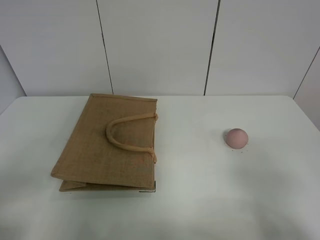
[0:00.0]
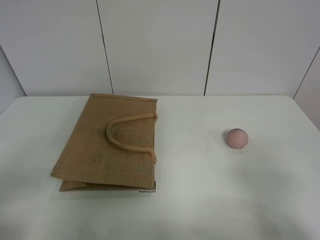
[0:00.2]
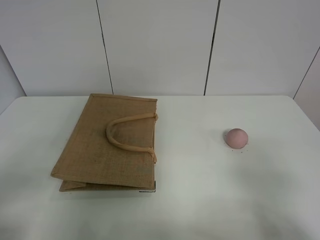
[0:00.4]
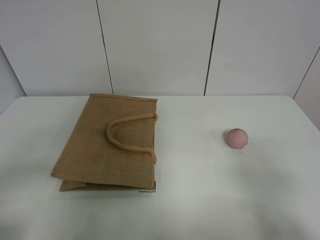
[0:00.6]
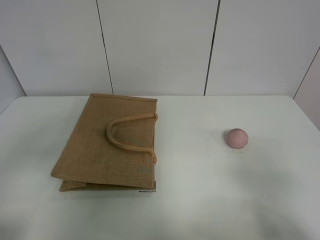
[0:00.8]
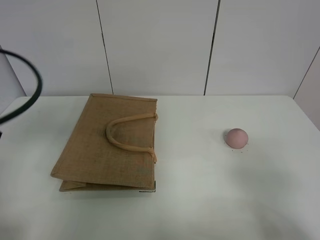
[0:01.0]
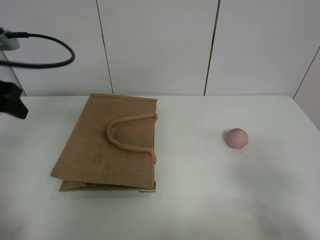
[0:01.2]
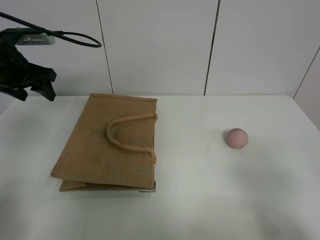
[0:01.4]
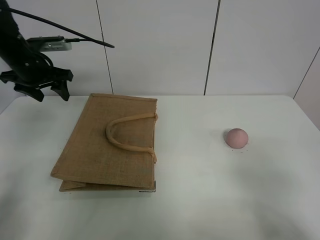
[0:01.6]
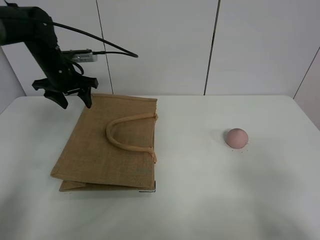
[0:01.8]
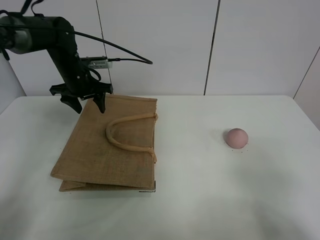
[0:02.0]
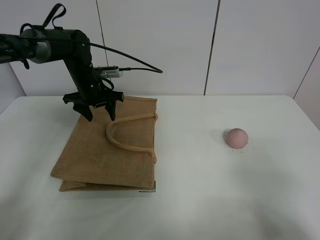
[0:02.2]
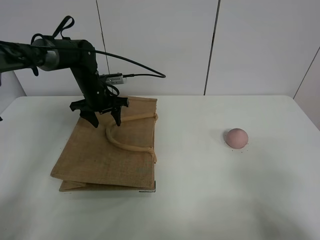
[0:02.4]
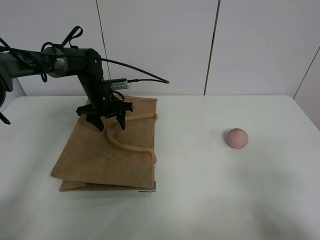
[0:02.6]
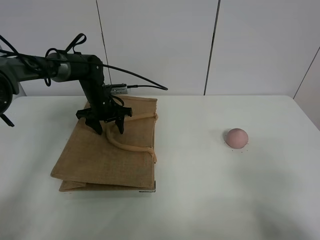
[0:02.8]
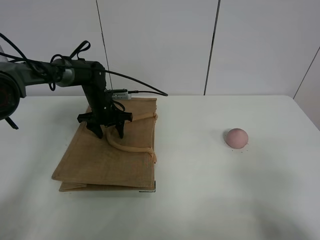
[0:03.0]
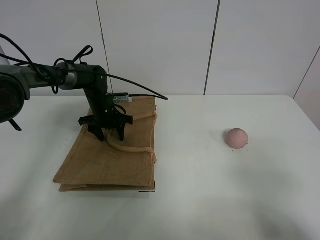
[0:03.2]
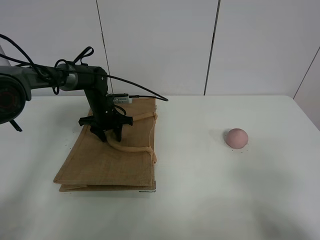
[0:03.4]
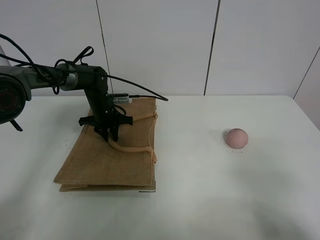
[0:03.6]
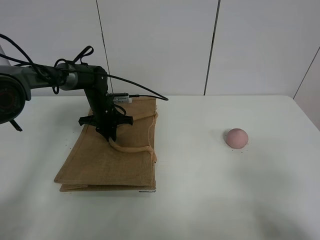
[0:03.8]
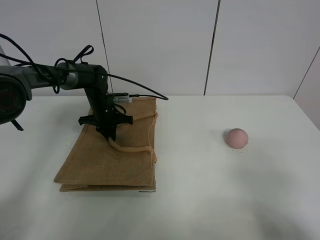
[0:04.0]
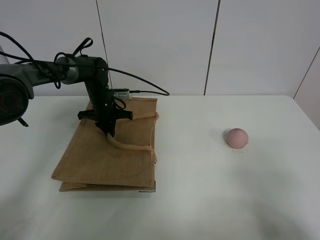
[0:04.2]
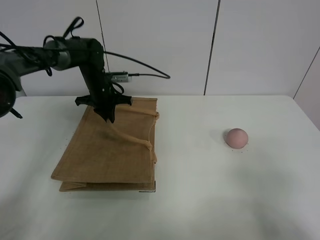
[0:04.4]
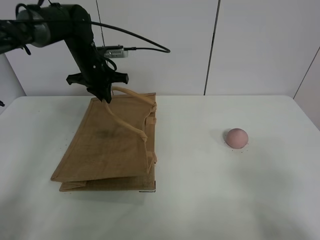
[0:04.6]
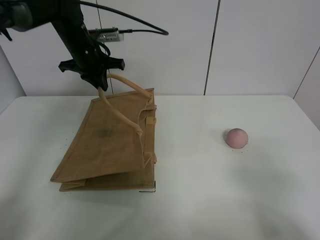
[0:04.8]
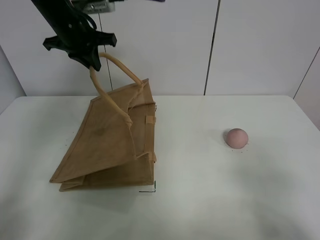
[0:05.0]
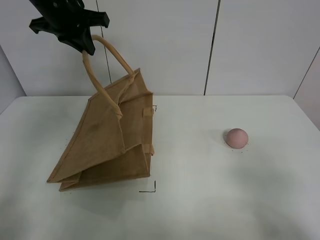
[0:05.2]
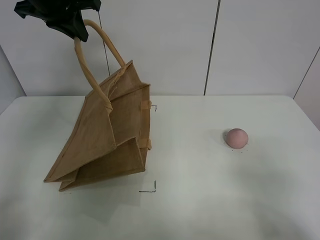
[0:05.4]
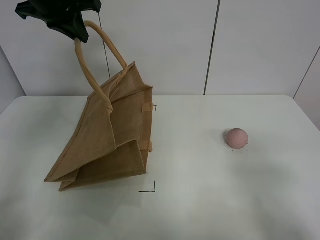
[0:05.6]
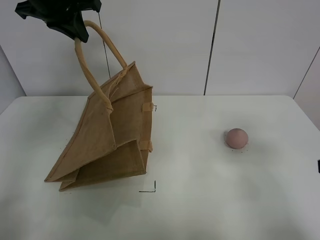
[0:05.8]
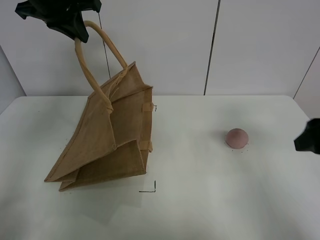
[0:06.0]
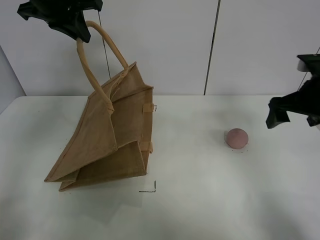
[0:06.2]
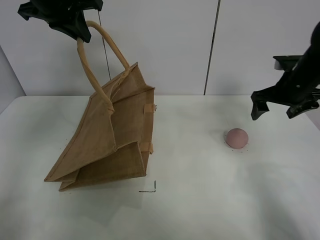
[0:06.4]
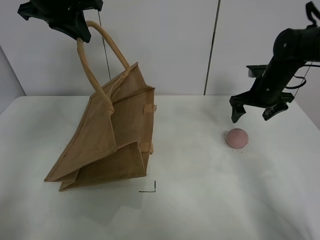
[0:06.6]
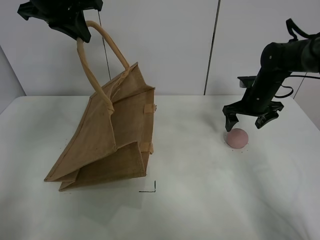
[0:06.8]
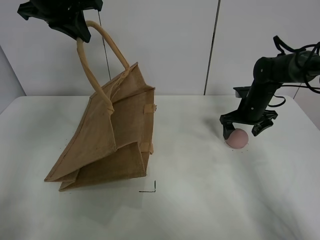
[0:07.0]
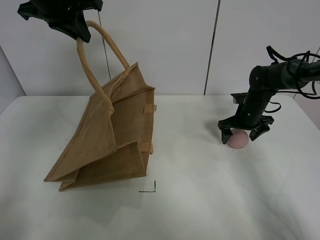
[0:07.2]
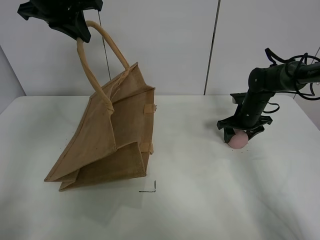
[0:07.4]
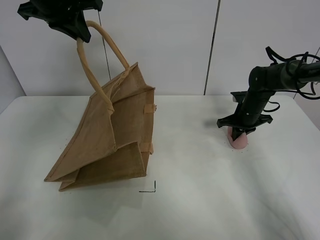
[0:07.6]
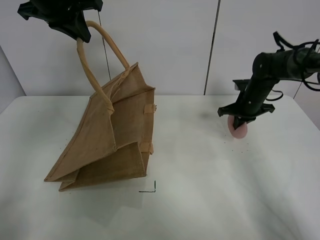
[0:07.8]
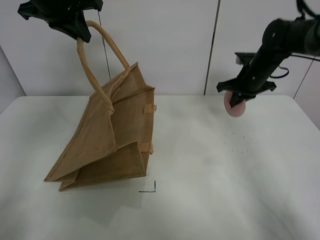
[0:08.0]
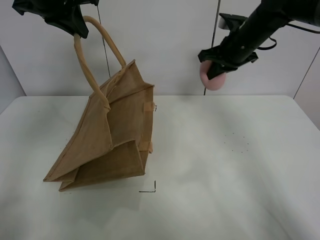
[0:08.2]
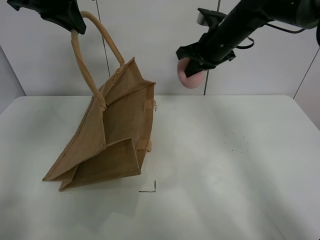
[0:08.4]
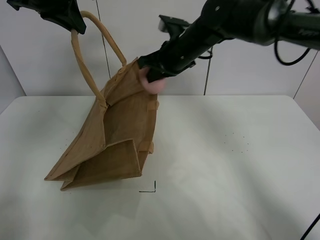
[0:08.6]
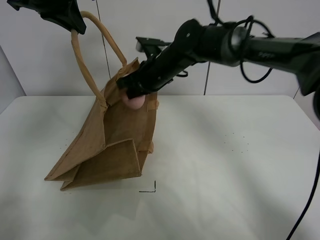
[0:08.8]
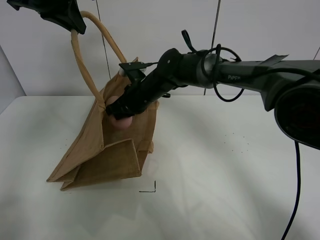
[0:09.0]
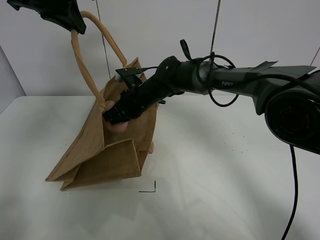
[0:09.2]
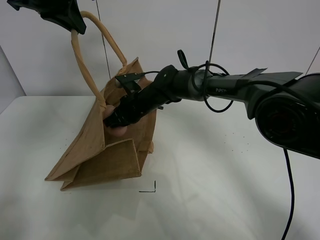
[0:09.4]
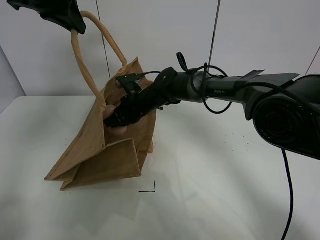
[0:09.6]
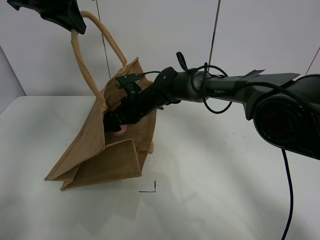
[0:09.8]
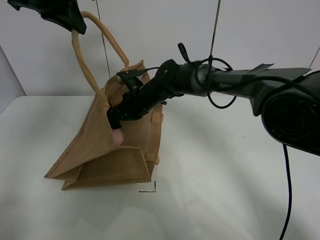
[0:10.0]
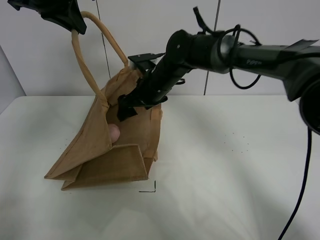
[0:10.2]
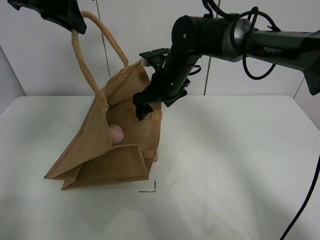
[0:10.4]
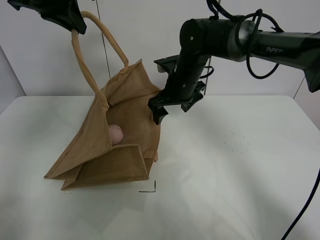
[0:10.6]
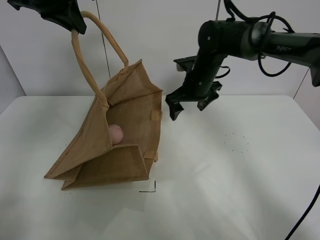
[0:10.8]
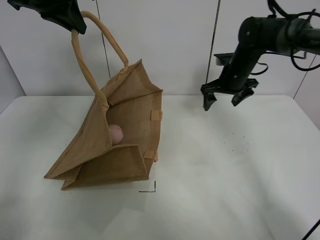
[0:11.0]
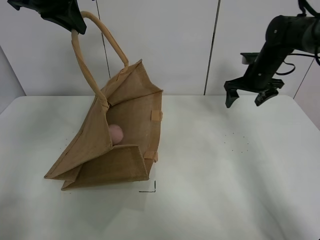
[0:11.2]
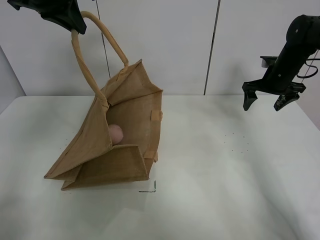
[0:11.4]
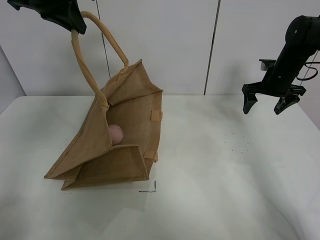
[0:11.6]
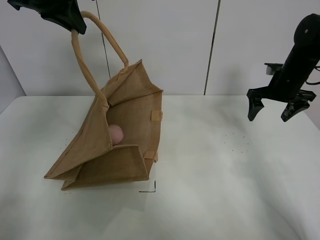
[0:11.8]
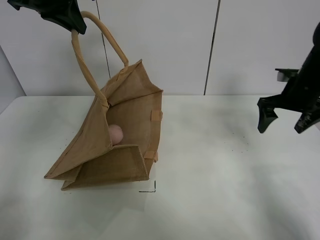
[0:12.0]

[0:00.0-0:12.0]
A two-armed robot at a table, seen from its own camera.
Task of the whole recording: open the brown linen bag and put the peach in the bag.
Step, 0:00.0 to 0:05.6: Lift the handbag with left gripper.
Step, 0:05.8 to 0:07.6: Grasp the peach with right gripper.
Step, 0:07.8 to 0:10.6: Place the peach in the handbag with right gripper.
0:00.0 to 0:01.6: The left gripper travels forward by about 40 cm.
0:01.6 to 0:03.0: The left gripper is displaced downward and to the right by about 20 cm.
0:03.0 to 0:04.4: The left gripper goes roughly 5 cm upward, and closes up.
0:04.4 to 0:06.0: The left gripper travels upward and backward by about 25 cm. The right gripper is displaced forward by roughly 20 cm.
0:06.0 to 0:07.6: The right gripper is displaced forward and downward by some 30 cm, and closes its fingers.
0:07.6 to 0:09.0: The right gripper shifts roughly 30 cm to the left.
0:09.0 to 0:10.4: The right gripper moves to the right and upward, some 10 cm, and opens its fingers.
0:10.4 to 0:12.0: The right gripper shifts some 25 cm to the right.

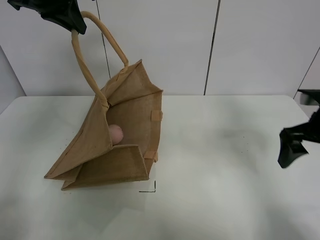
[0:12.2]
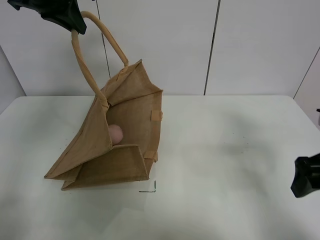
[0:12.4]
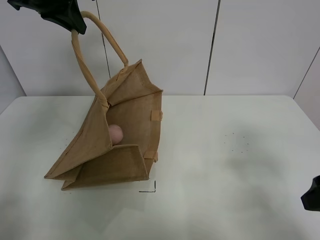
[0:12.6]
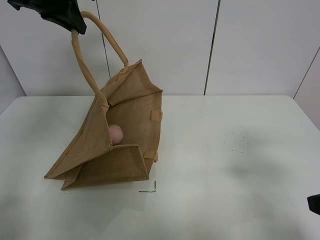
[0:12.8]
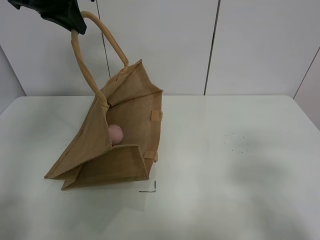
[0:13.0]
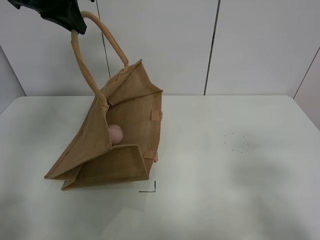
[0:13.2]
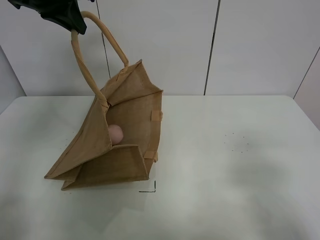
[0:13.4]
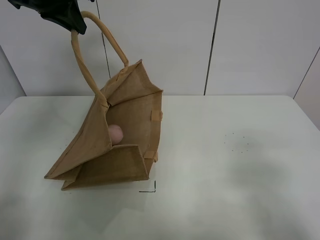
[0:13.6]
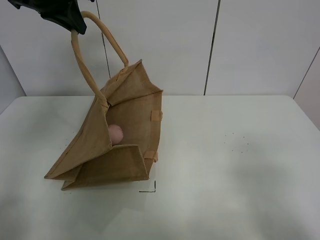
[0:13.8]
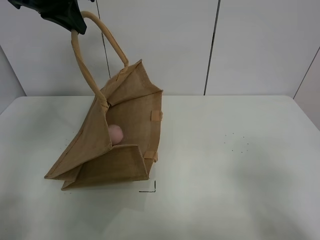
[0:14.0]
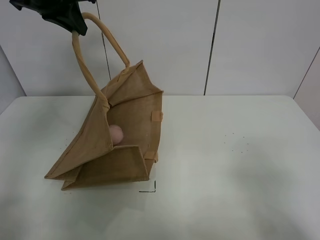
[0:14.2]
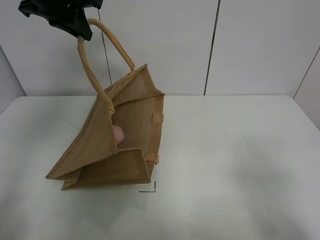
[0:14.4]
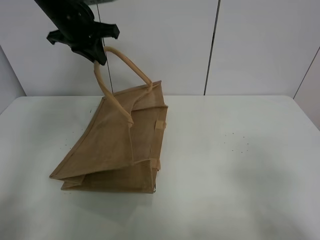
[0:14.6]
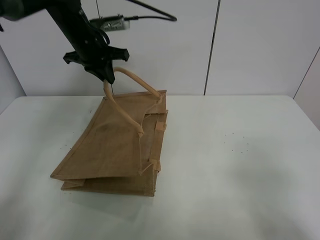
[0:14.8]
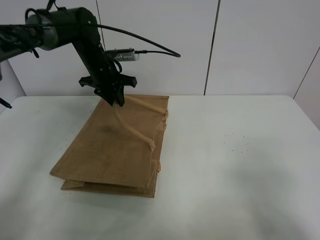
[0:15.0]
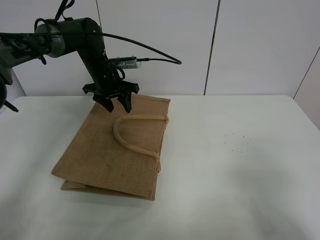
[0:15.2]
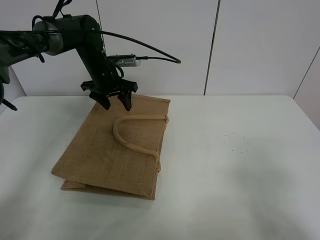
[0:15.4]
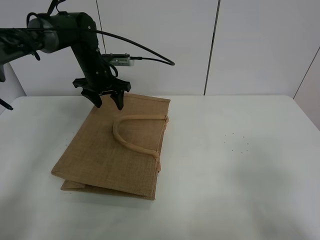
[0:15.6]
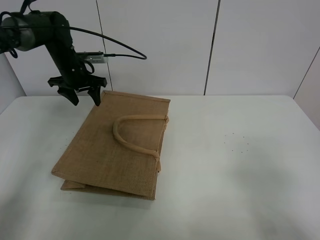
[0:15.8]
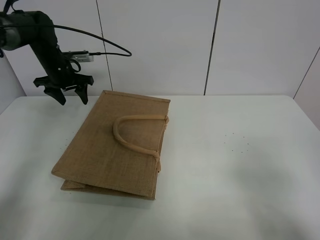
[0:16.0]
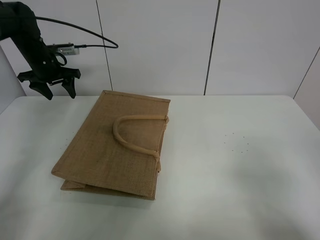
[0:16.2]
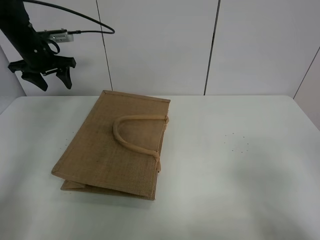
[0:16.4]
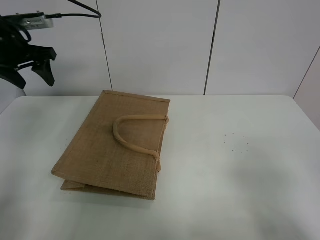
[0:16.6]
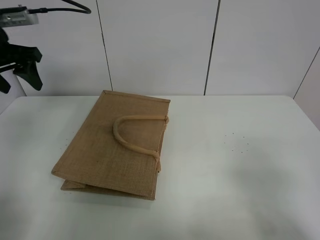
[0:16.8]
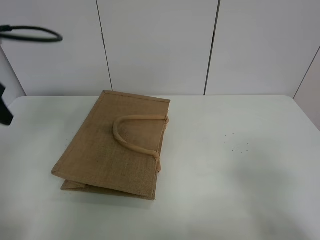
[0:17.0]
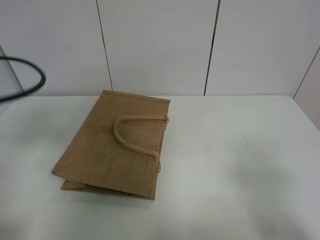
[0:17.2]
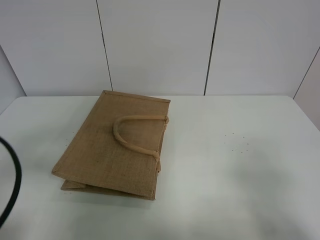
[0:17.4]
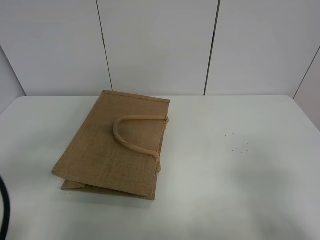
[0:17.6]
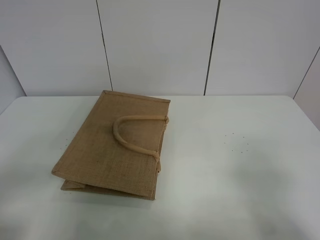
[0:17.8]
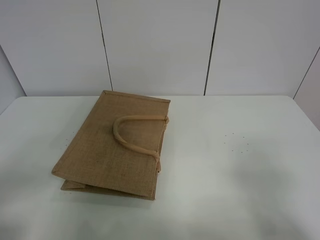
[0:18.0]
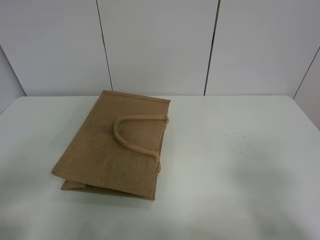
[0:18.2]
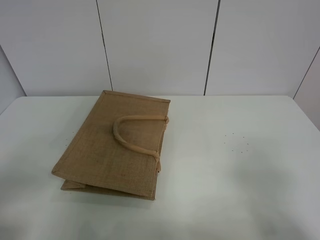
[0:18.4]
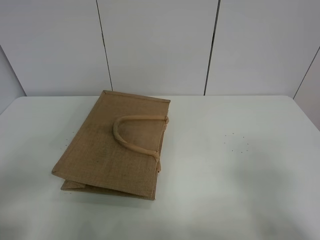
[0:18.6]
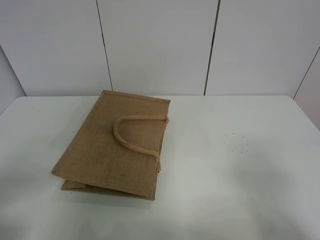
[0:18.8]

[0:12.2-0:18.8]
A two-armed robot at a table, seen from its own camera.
Task of the whole recording: open the brown linen bag and put the peach in the bag.
Step, 0:12.2 to 0:15.8: Put down the handbag with left grippe.
0:12.2 to 0:13.8: The right gripper heads backward, covering approximately 20 cm.
0:13.8 to 0:15.4: The left gripper is displaced downward and forward by some 25 cm, and opens up.
0:15.4 to 0:17.2: The left gripper moves backward and to the left, about 35 cm.
0:17.2 to 0:18.8: The left gripper moves backward, about 15 cm.

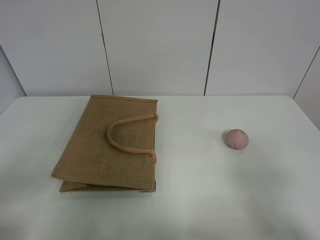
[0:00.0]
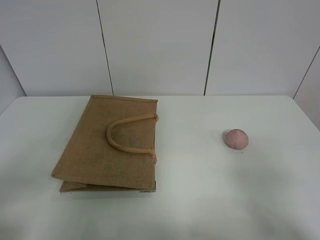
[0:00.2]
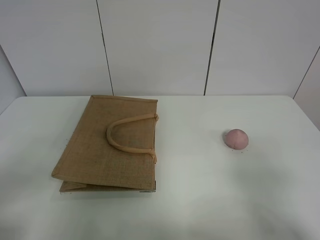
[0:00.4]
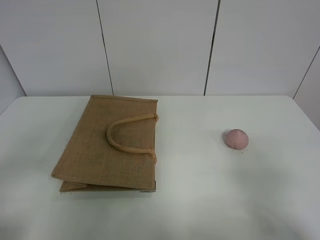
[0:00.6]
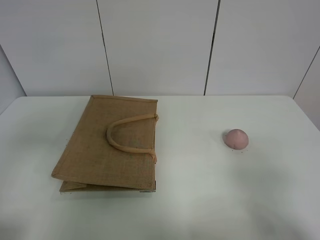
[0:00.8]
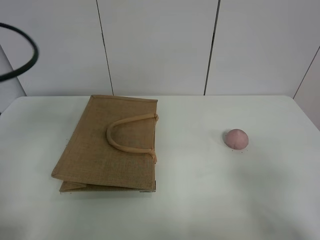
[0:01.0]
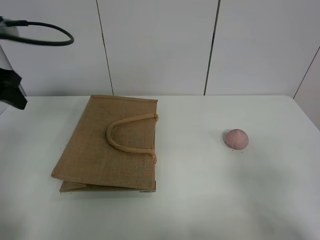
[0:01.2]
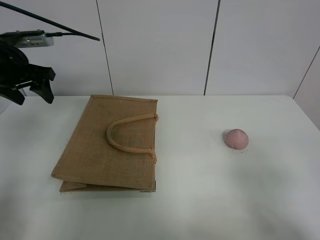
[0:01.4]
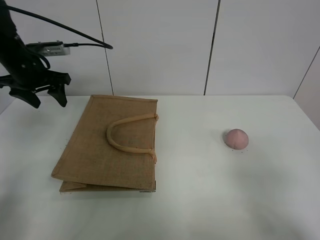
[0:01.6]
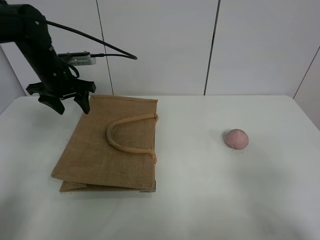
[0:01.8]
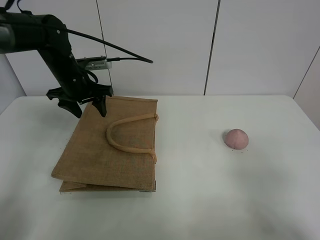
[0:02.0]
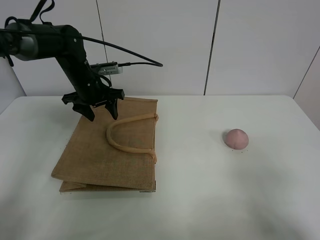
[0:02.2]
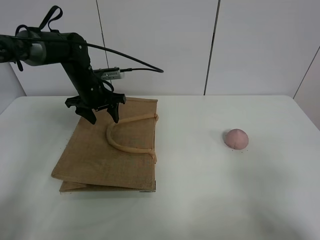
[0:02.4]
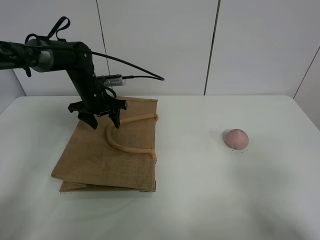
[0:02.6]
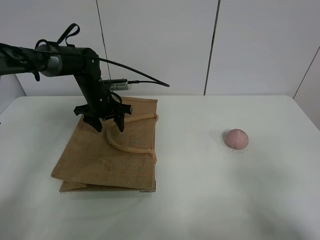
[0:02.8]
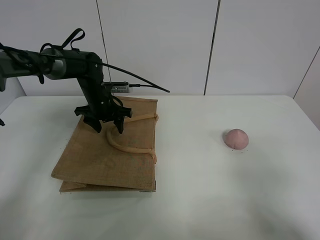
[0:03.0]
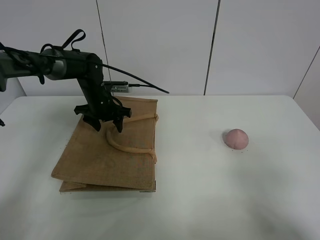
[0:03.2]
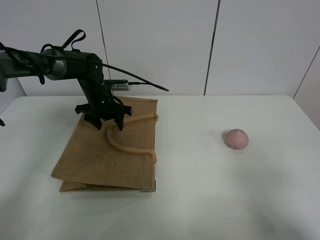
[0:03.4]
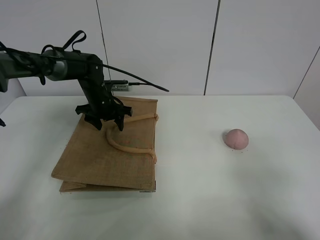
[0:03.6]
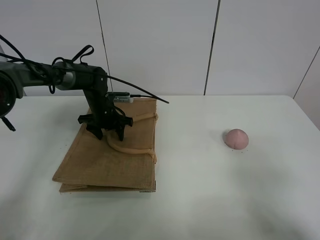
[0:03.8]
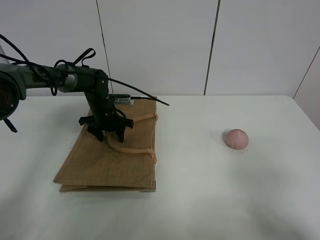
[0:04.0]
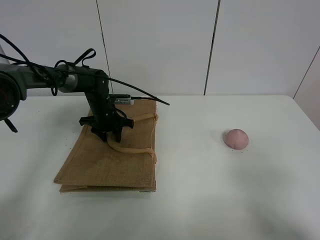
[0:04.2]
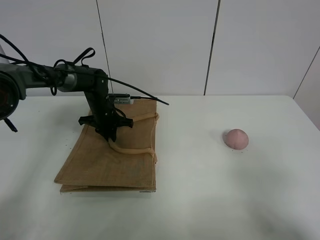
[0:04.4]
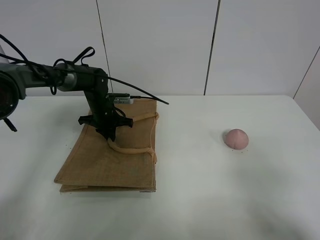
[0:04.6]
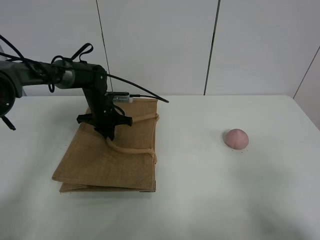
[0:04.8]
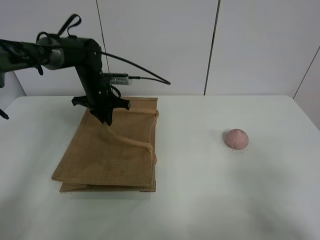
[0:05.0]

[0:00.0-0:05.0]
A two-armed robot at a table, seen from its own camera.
Task of the whole recording: open the brown linen bag and put the peach in the bag.
0:01.6 to 0:03.4: The left gripper goes roughly 20 cm downward, to the right and forward.
0:03.4 to 0:05.0: The left gripper closes up.
